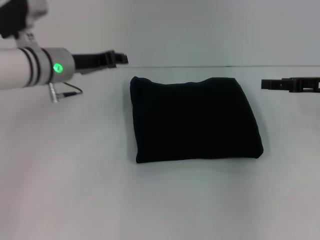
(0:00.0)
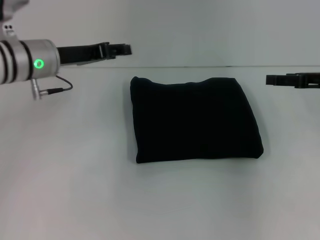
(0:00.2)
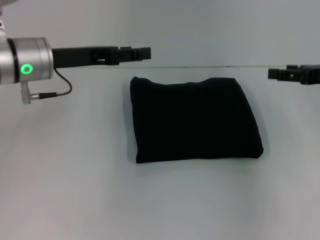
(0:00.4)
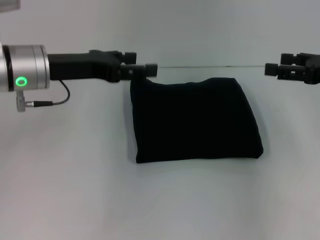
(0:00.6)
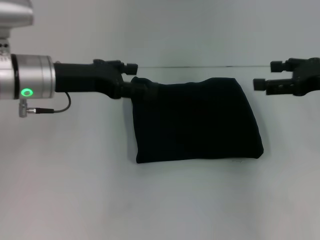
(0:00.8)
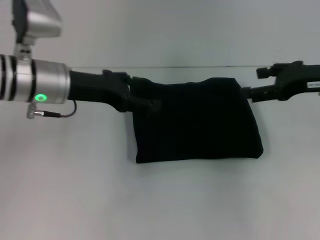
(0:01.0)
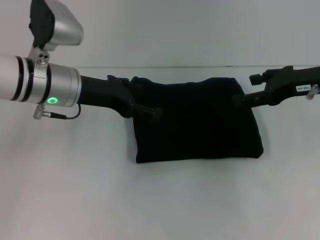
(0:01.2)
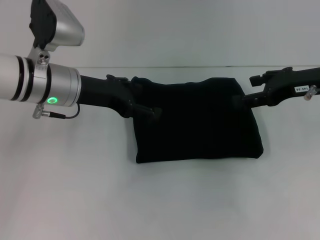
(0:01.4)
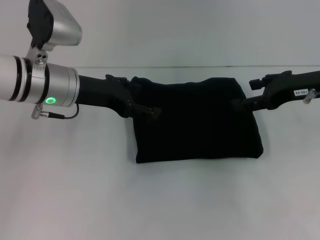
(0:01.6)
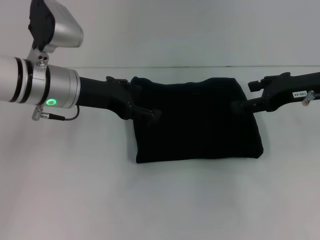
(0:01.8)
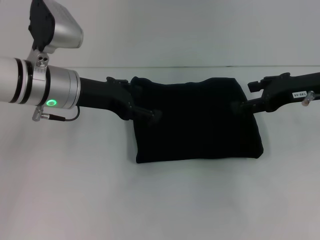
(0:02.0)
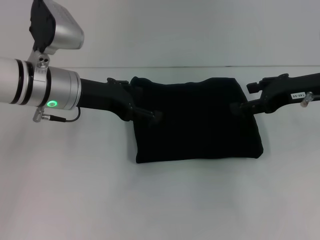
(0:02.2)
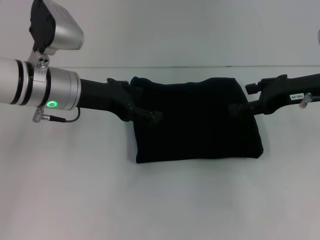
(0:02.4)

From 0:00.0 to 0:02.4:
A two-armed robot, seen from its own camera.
From 0:00.0 to 0:01.2: The right gripper ends up approximately 5 cm from where it was. Meanwhile the left gripper is displaced backward by roughly 5 cm, and opens.
From 0:01.2 to 0:02.4: The two grippers keep their place.

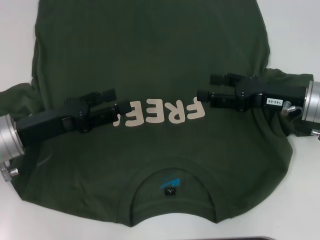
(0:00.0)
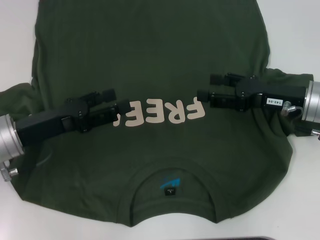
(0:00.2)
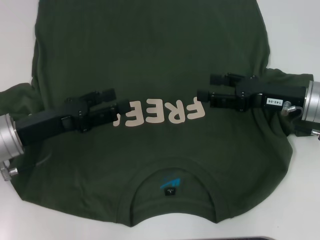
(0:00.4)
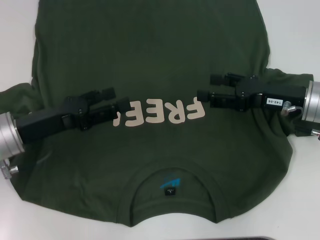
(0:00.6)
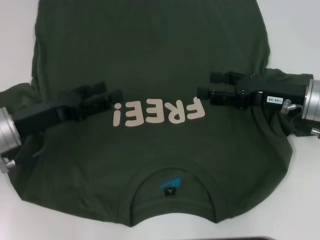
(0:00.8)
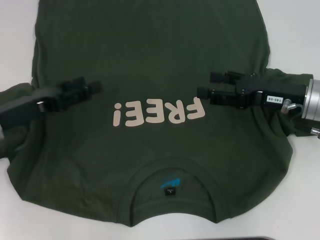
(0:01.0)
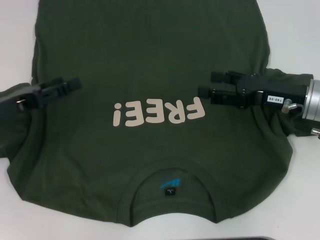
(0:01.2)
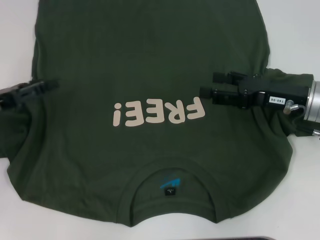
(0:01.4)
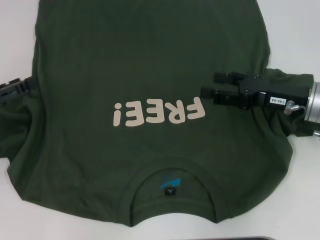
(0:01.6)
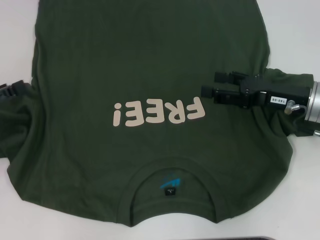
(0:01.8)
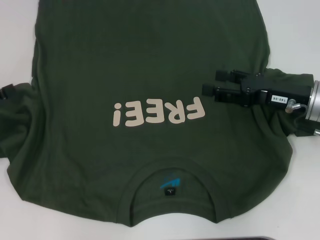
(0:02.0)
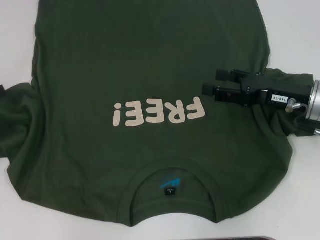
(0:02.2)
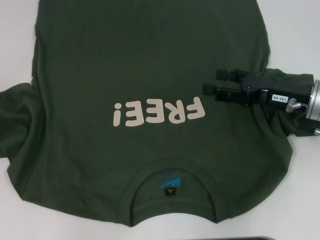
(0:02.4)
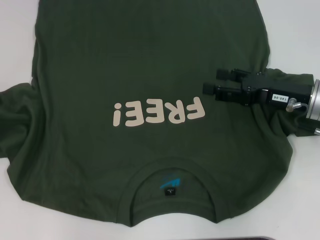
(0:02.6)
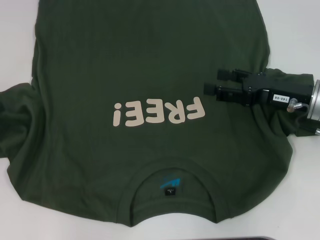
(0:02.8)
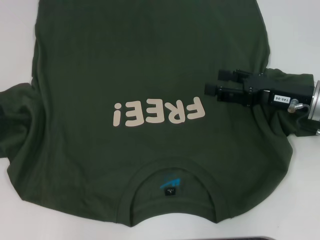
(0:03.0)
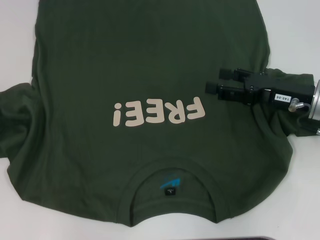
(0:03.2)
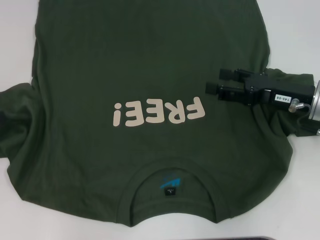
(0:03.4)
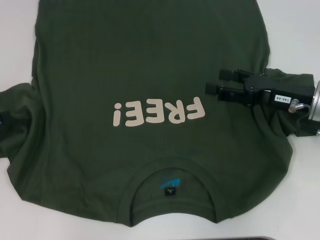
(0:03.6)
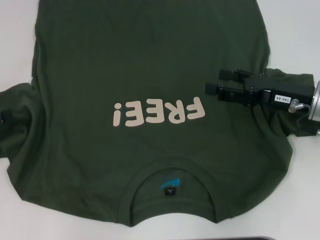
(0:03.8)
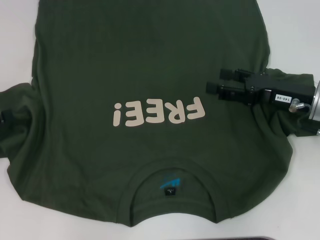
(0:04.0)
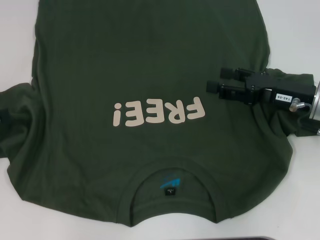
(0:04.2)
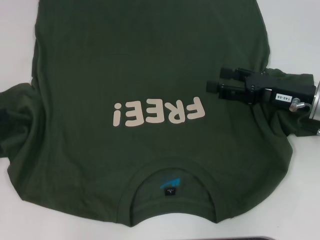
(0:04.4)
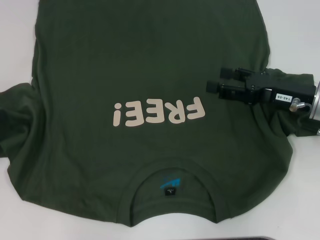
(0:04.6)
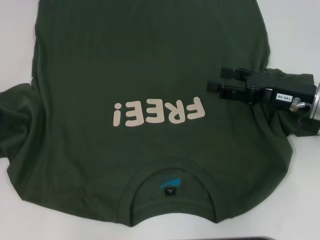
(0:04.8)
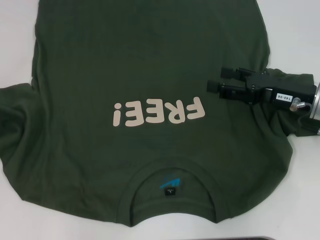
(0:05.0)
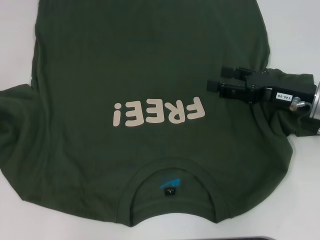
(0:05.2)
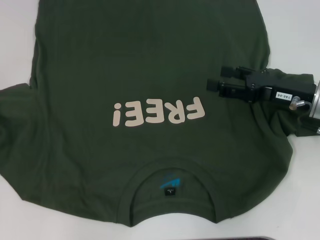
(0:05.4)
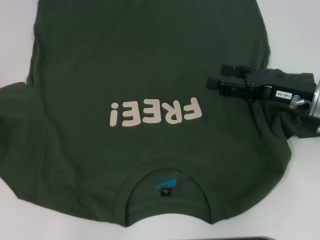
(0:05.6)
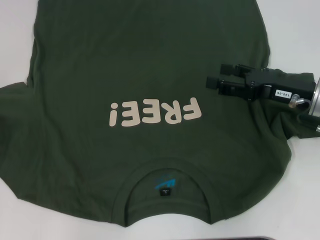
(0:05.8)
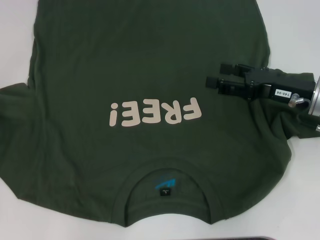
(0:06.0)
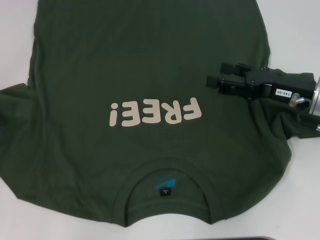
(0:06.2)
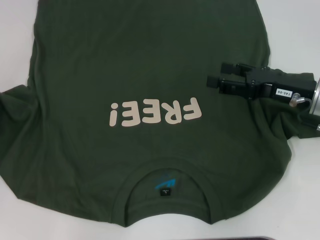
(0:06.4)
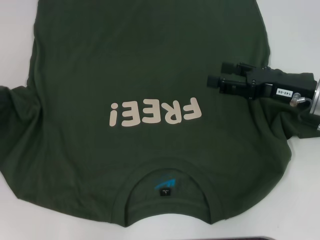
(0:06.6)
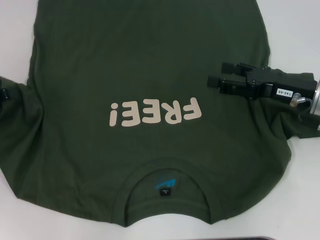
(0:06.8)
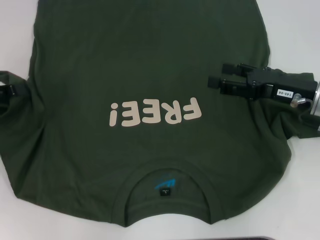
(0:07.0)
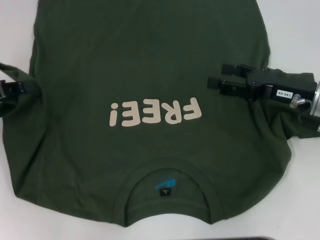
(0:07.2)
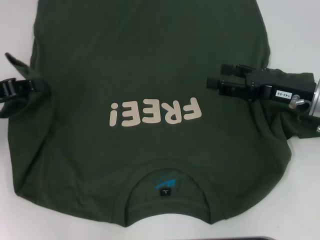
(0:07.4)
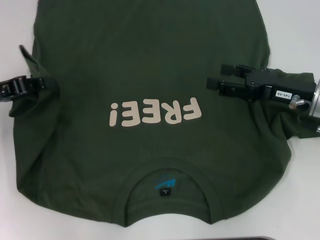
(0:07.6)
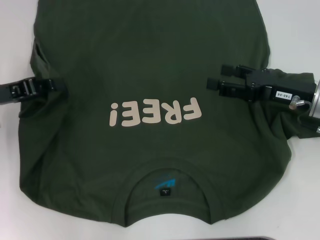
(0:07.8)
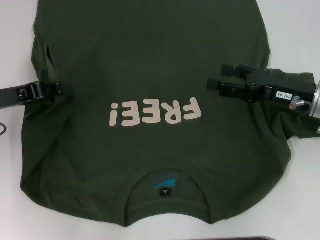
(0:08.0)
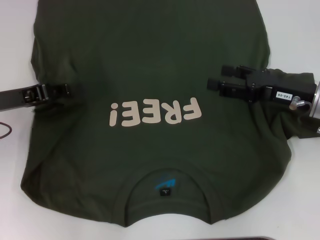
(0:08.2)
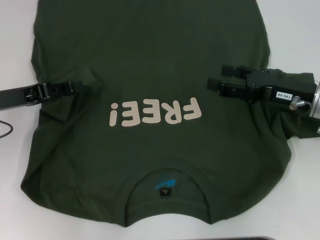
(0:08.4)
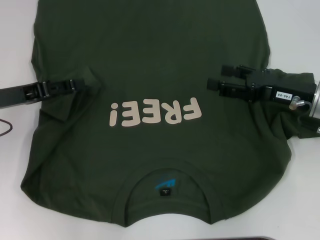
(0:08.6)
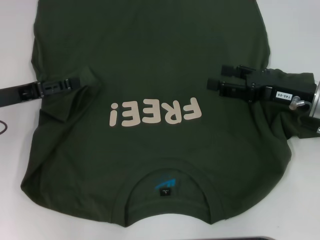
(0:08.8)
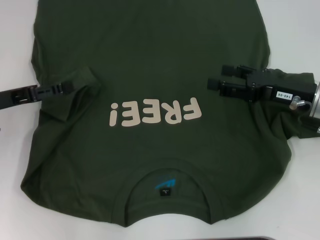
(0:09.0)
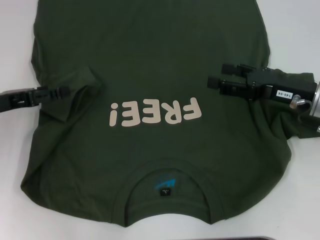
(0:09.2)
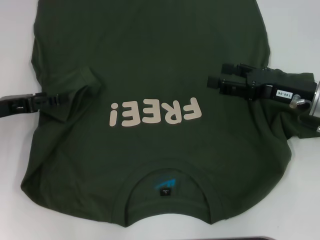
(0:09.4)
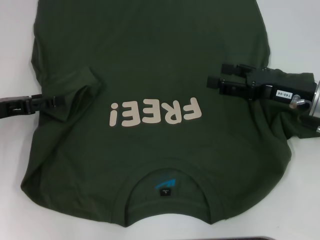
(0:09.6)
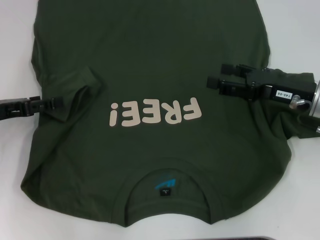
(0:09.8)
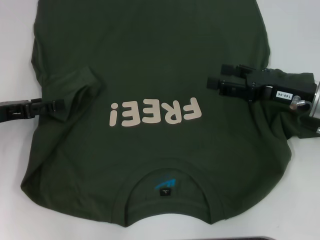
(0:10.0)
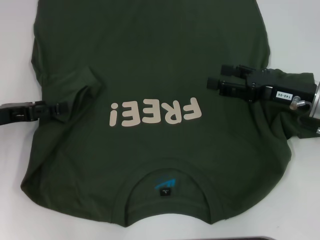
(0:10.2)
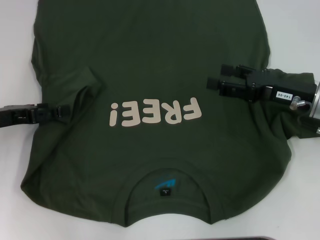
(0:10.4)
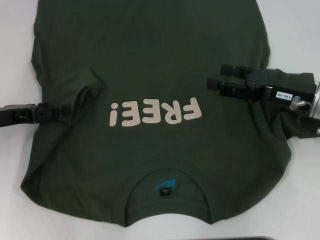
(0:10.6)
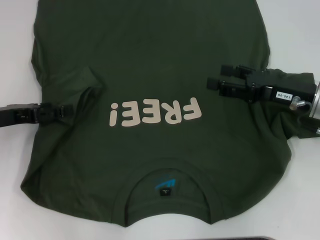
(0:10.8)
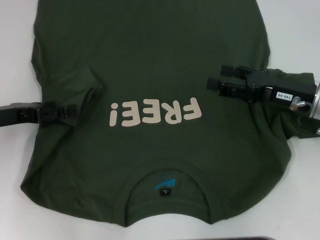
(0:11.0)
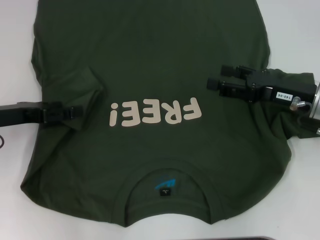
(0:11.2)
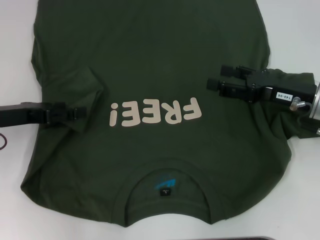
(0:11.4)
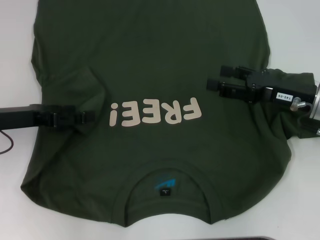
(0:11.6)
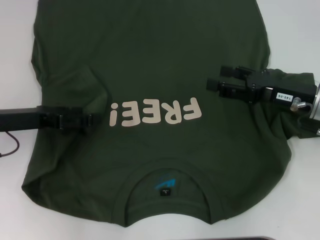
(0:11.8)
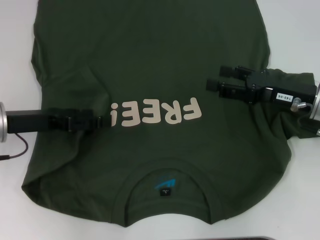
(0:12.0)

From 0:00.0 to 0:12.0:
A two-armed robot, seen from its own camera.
From 0:00.0 to 0:01.6: The left gripper travels to the left by some 10 cm.
From 0:03.0 to 0:04.4: The two grippers keep their place.
From 0:04.4 to 0:06.0: The left gripper closes.
From 0:06.0 to 0:07.6: The left gripper heads to the right, covering approximately 10 cm.
From 0:07.6 to 0:09.0: The left gripper opens up.
From 0:09.0 to 0:10.4: The grippers stay close to where they were, moving slightly.
From 0:10.4 to 0:12.0: The left gripper ends up roughly 5 cm from where it was.

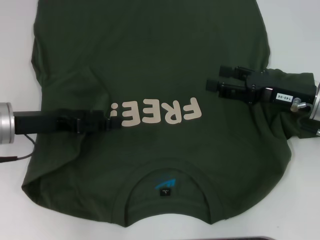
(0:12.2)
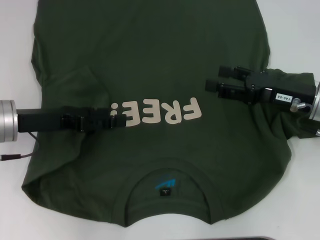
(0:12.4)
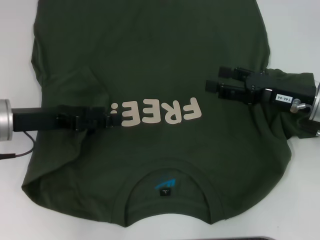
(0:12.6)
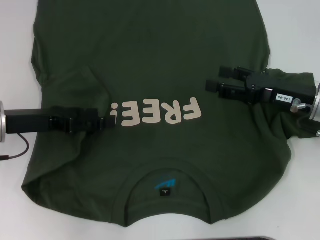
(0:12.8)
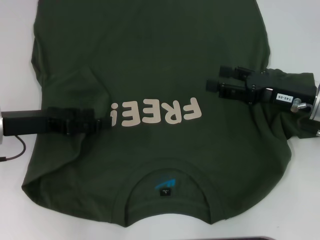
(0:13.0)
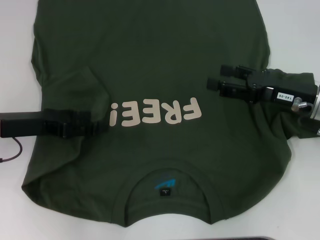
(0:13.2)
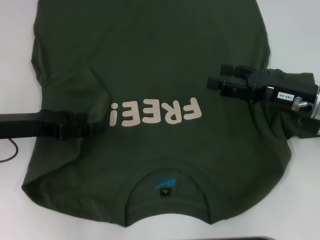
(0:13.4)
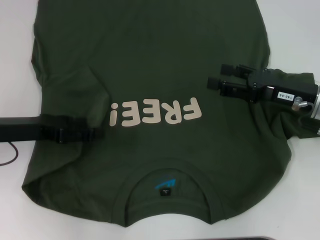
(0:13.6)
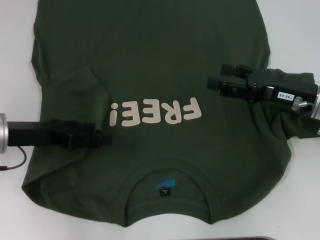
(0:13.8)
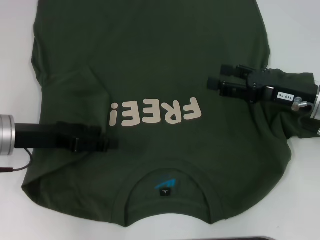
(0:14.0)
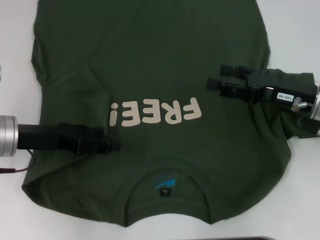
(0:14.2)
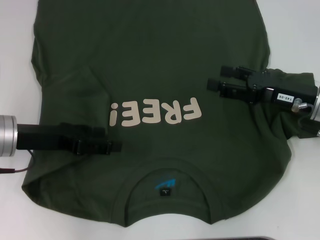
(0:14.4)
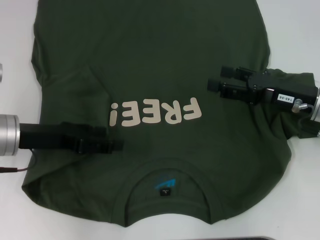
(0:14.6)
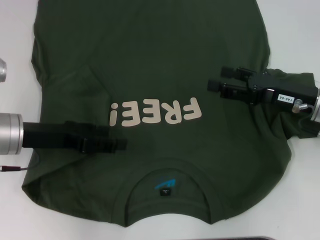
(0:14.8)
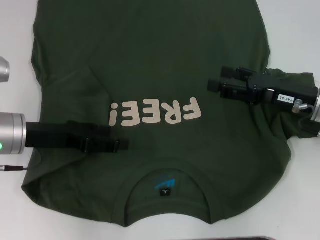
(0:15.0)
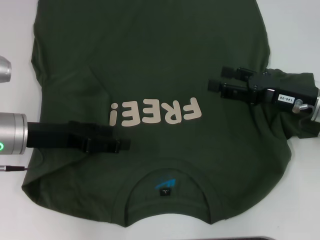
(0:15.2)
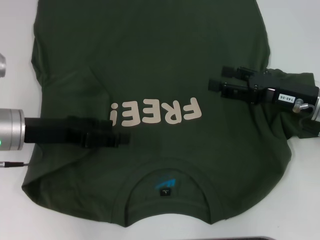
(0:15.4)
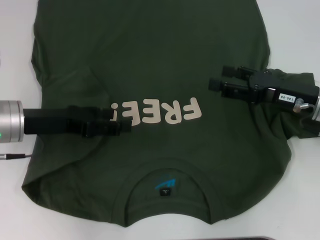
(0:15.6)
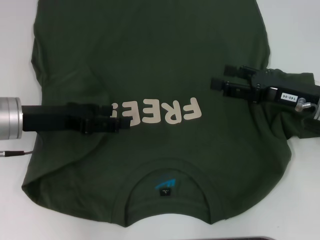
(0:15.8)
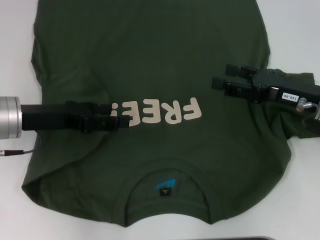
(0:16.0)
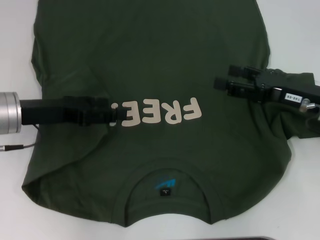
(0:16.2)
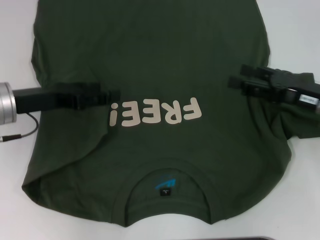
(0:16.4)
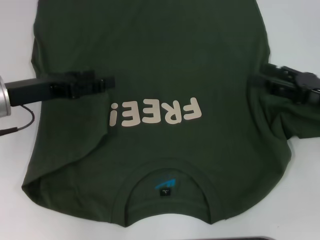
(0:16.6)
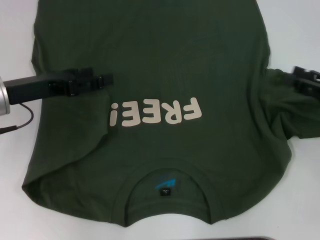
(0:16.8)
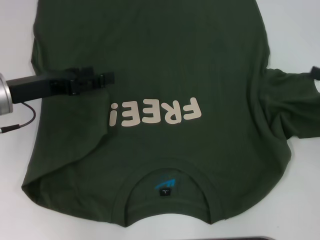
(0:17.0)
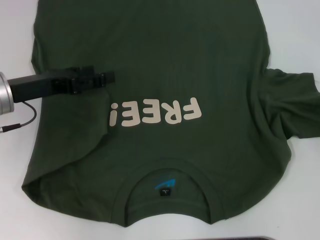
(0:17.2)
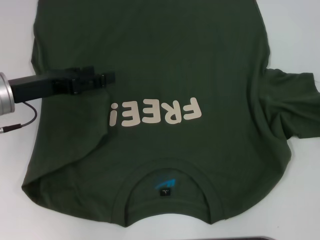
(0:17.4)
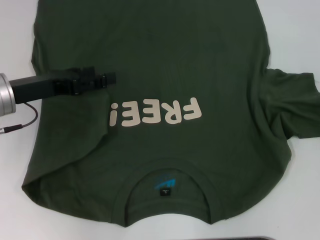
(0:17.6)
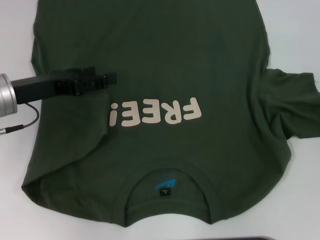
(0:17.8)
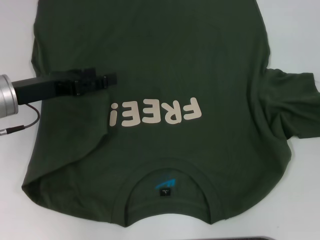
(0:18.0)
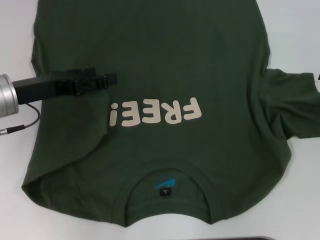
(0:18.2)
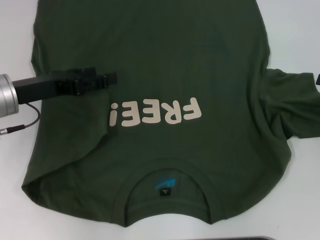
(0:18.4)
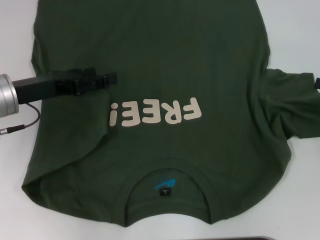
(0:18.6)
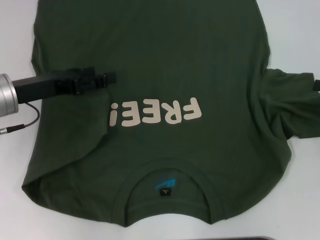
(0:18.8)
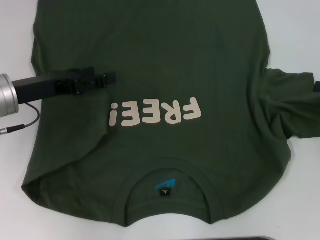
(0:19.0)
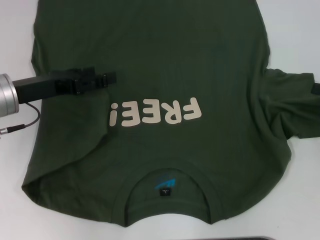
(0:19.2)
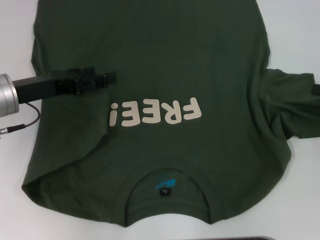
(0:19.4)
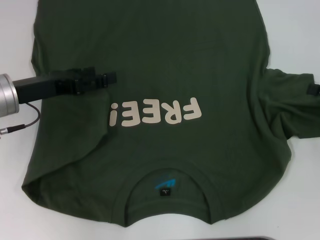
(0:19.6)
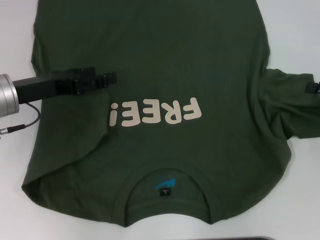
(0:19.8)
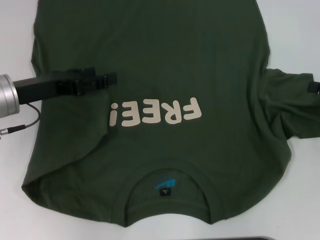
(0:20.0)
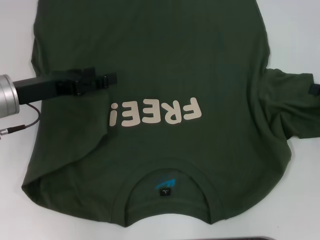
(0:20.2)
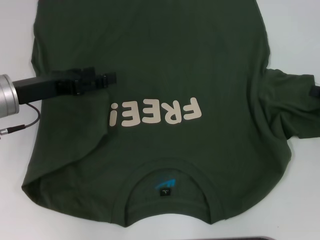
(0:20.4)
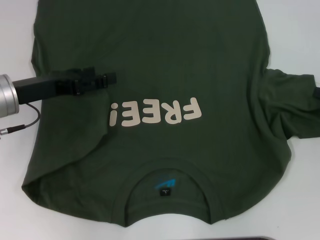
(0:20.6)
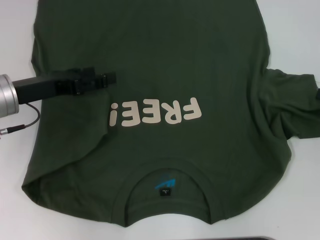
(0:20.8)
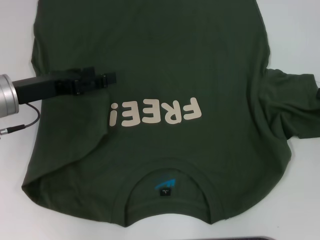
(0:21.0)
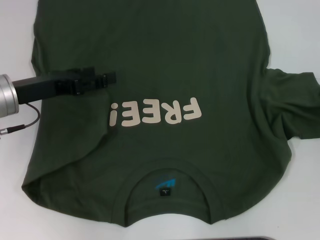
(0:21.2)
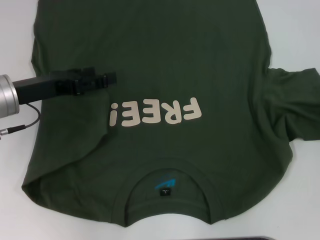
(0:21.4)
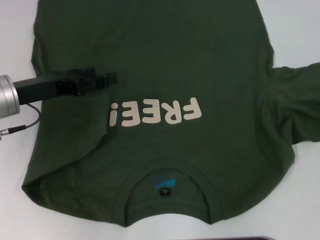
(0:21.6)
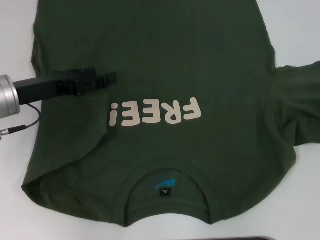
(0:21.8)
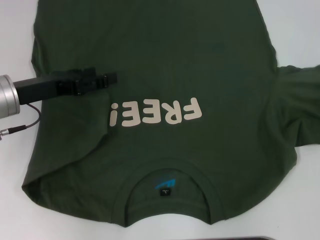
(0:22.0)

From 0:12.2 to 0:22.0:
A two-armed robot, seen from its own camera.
Step, from 0:12.2 to 0:15.6: Fold the bottom left sleeve with your left hand.
From 0:12.2 to 0:16.4: The grippers move only a little.
From 0:16.4 to 0:17.8: The right gripper moves to the right, about 15 cm.
From 0:20.6 to 0:22.0: The right gripper closes its fingers.
